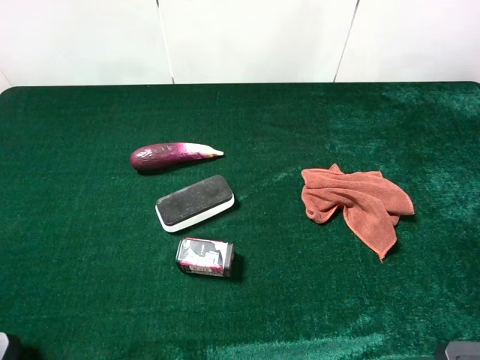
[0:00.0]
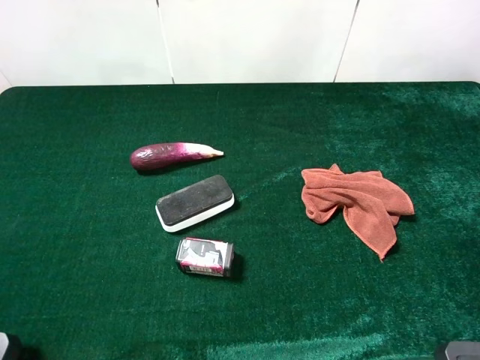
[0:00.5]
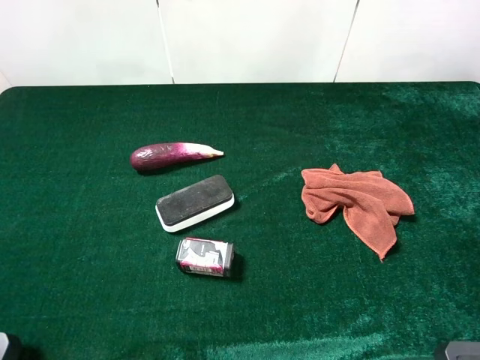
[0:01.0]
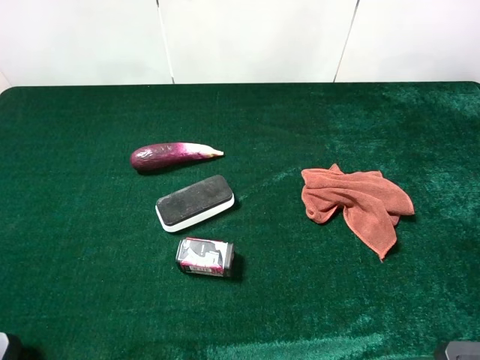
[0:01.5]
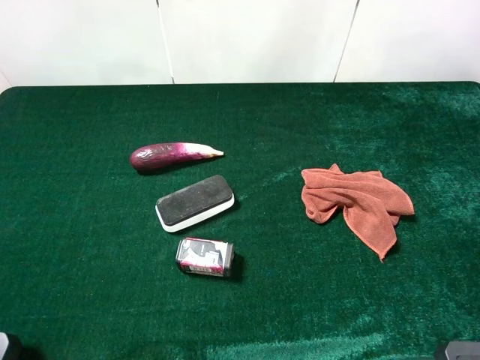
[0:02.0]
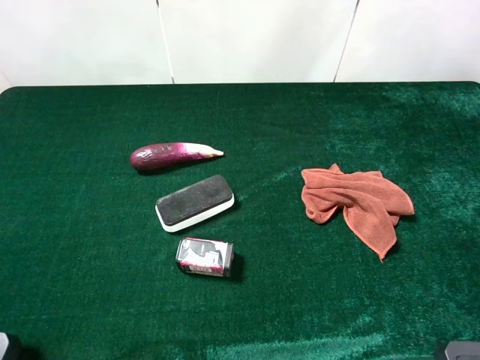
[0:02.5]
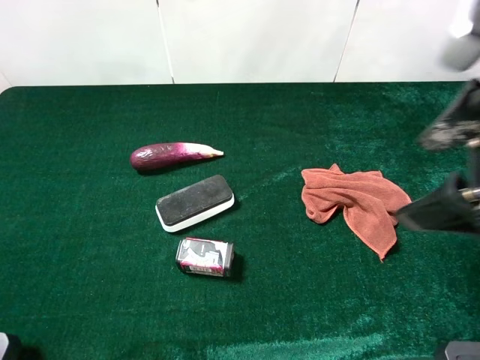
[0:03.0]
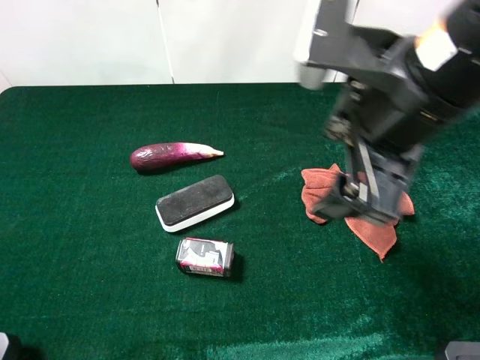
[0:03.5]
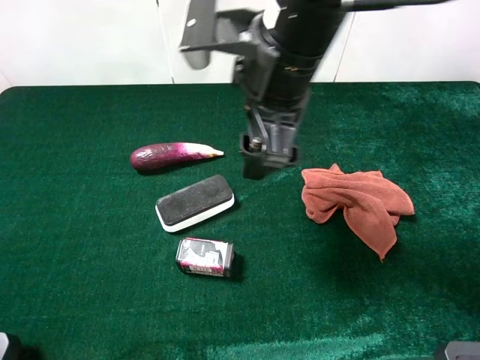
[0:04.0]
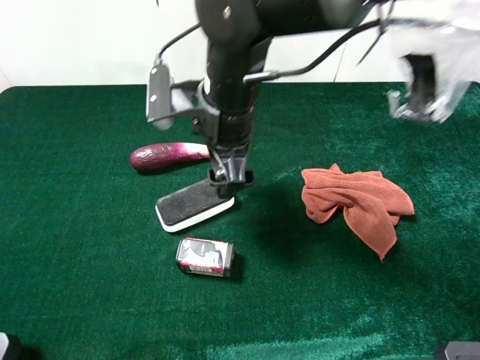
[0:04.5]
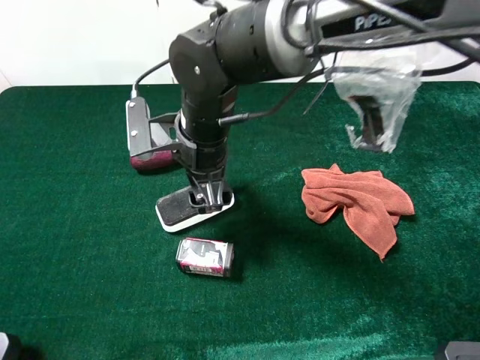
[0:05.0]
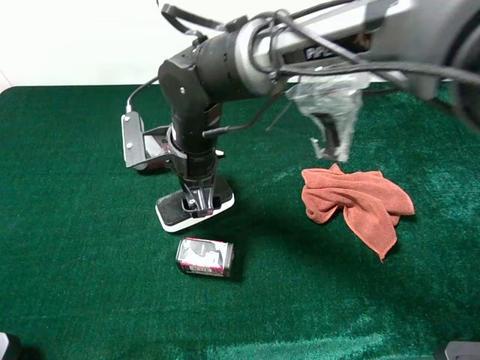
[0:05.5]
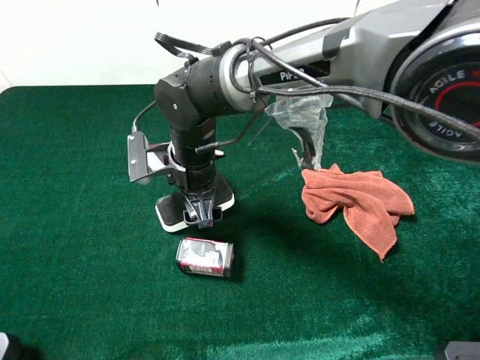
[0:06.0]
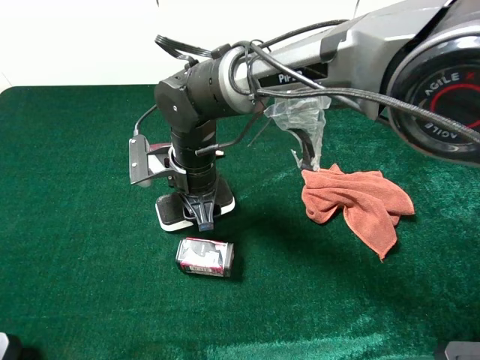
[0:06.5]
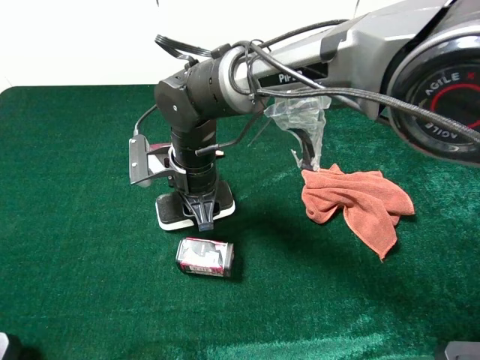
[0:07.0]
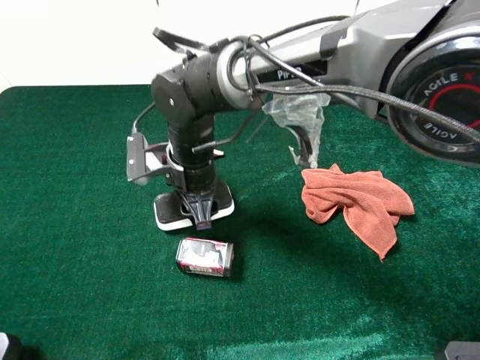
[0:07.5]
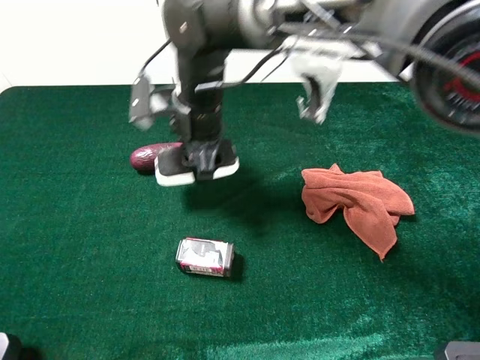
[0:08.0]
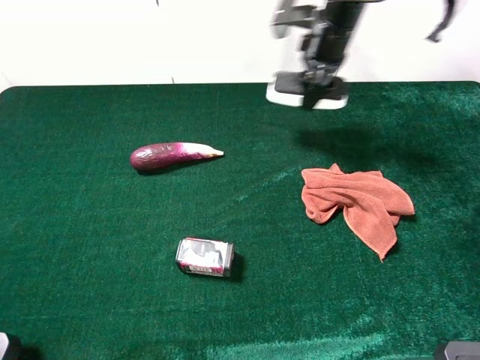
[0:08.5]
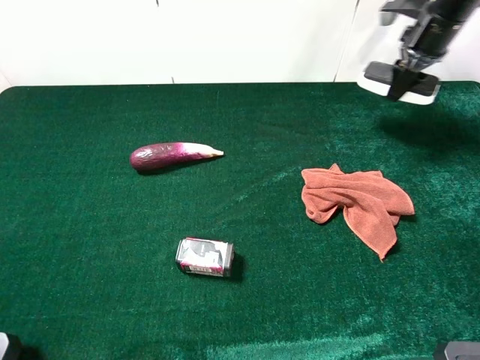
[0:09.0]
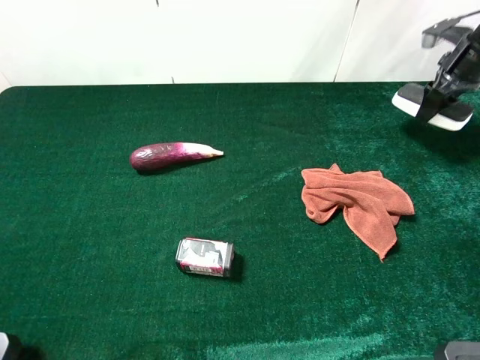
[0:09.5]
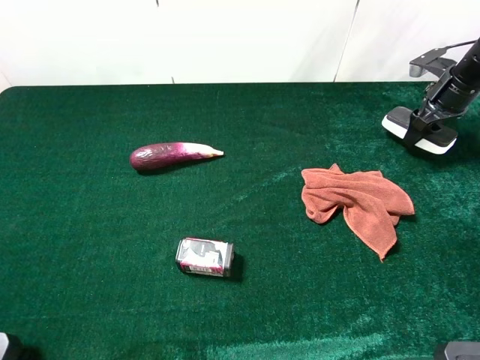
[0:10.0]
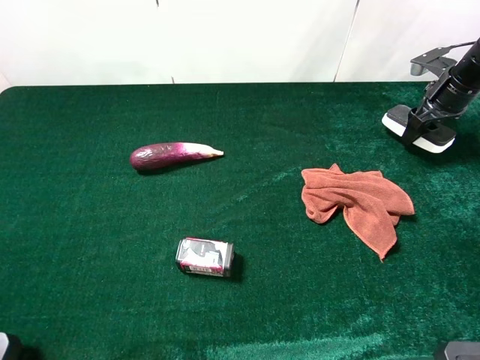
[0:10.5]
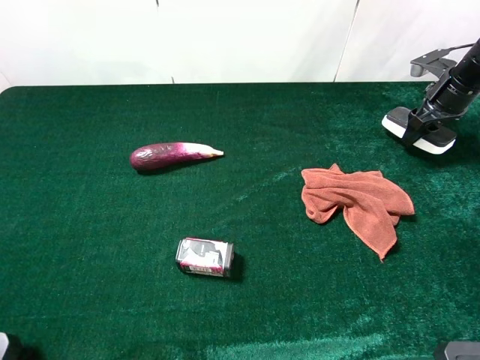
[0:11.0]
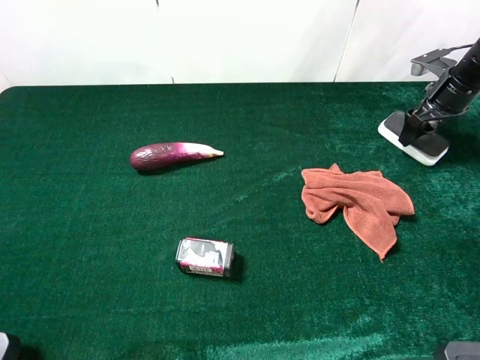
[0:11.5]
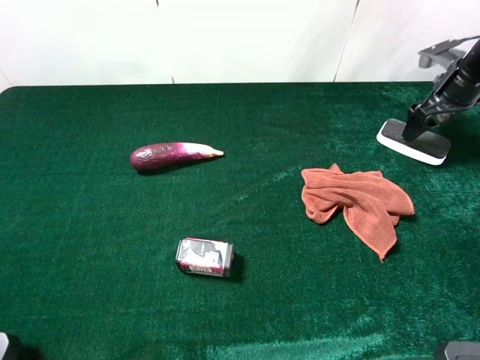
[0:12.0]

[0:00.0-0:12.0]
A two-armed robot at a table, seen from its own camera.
Task of the whole recording: the gripper move the object.
Step, 0:00.0 to 0:06.0: Grasp the white blackboard erasure with the right gripper.
Step, 0:06.5 to 0:11.5: Place the white blackboard erasure on the table with the right gripper.
0:02.0 to 0:04.0: The right gripper travels to the left and forward by some 30 cm.
0:04.0 to 0:06.0: The right gripper goes approximately 20 cm downward and to the left.
0:06.0 to 0:08.0: The right gripper goes about 5 cm upward, and closes.
0:08.0 to 0:10.0: The right gripper shifts about 40 cm to the right.
0:10.0 to 0:12.0: The right gripper opens up.

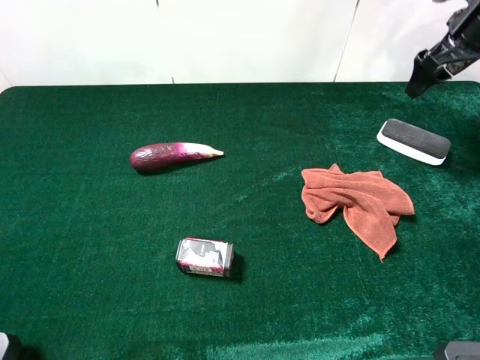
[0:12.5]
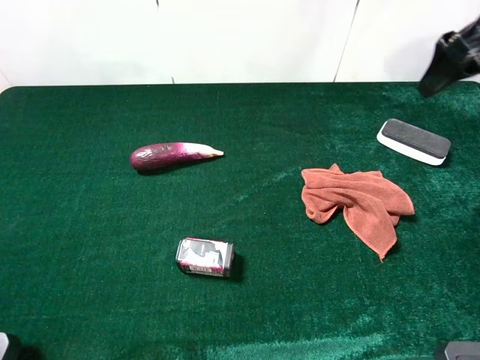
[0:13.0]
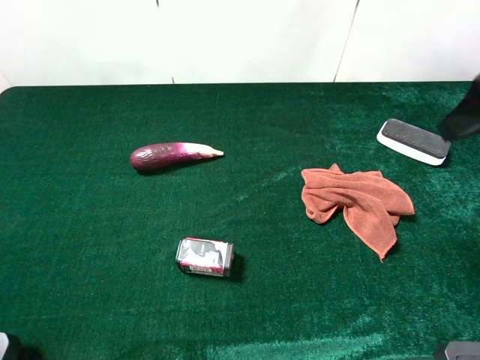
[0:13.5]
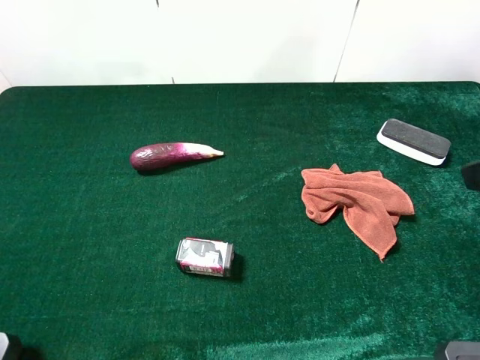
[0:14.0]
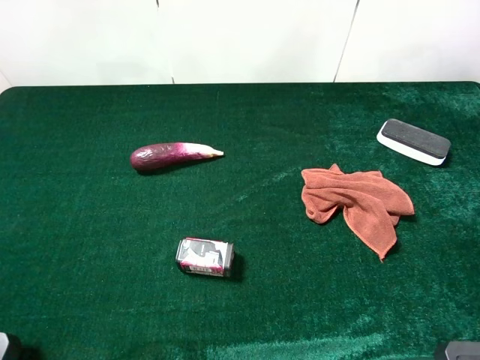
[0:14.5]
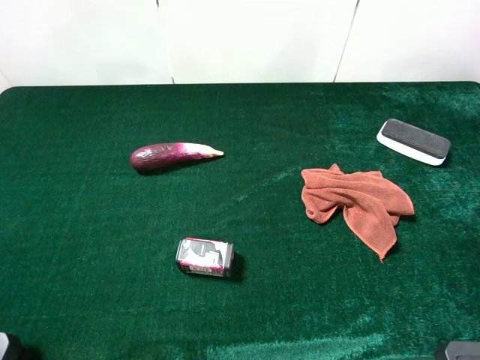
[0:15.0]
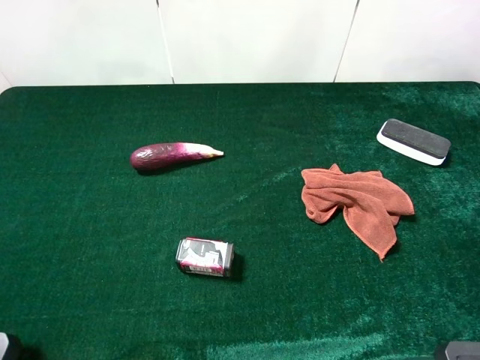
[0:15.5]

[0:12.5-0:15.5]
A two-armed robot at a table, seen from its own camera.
Task of the whole recording: the gripper move the object.
0:12.5 to 0:14.0: The right gripper goes approximately 30 cm backward.

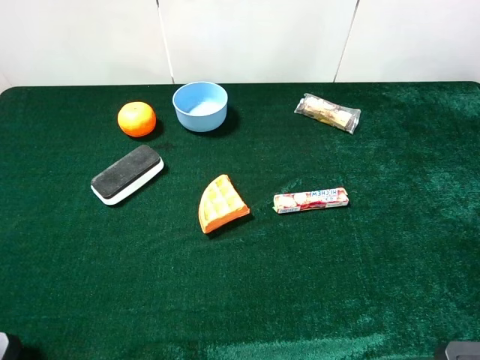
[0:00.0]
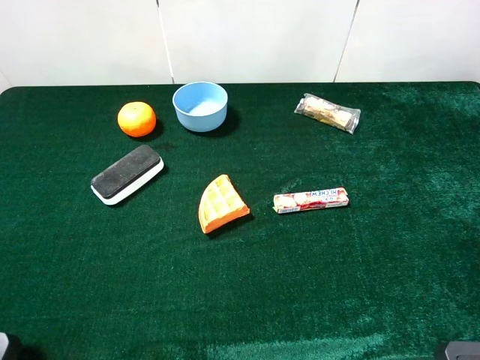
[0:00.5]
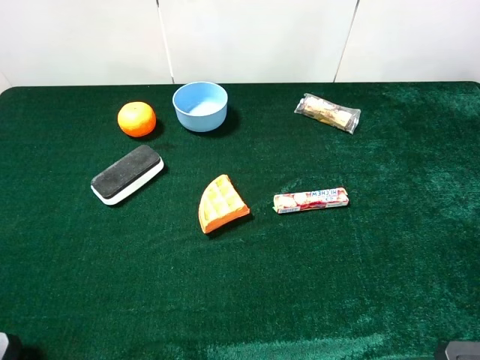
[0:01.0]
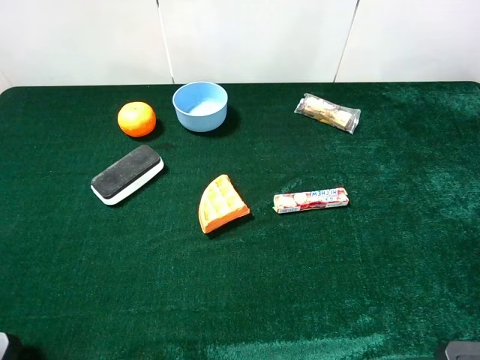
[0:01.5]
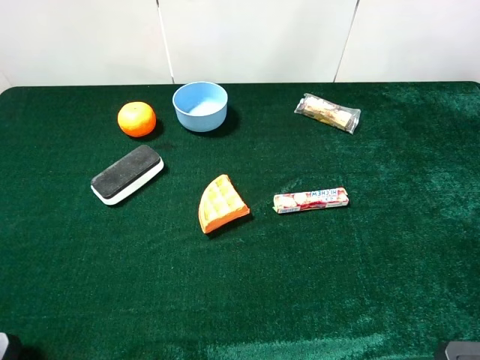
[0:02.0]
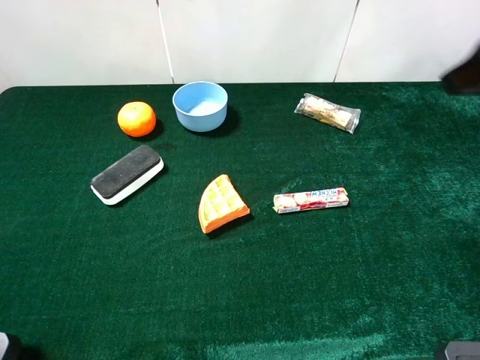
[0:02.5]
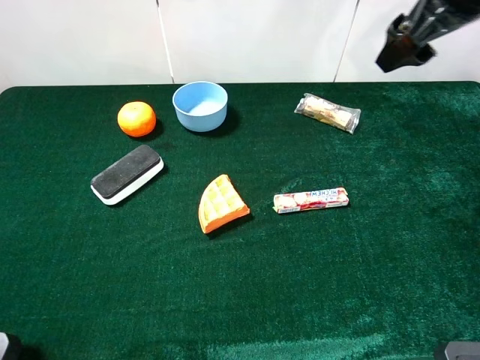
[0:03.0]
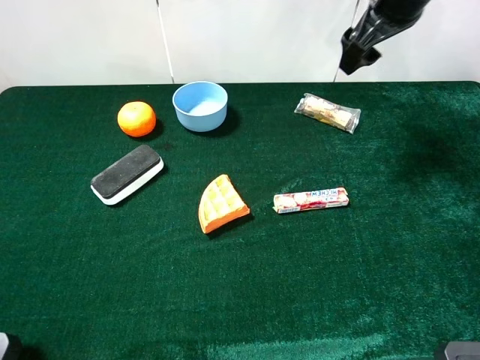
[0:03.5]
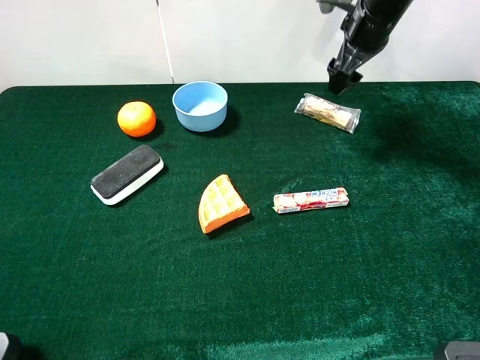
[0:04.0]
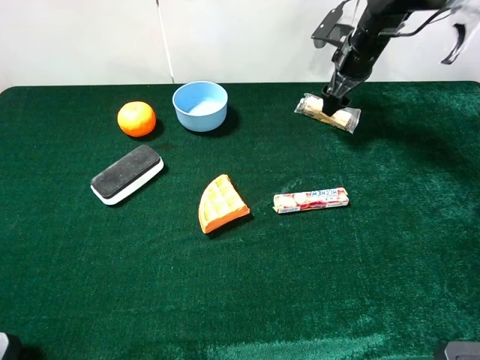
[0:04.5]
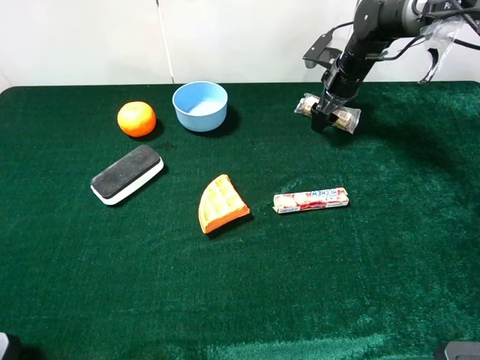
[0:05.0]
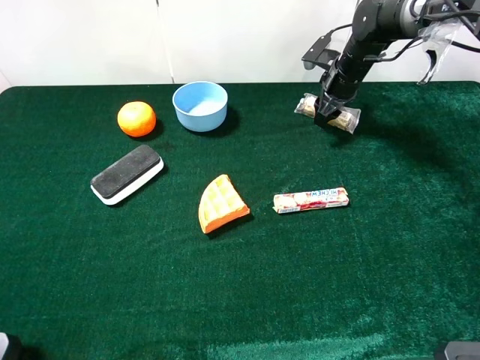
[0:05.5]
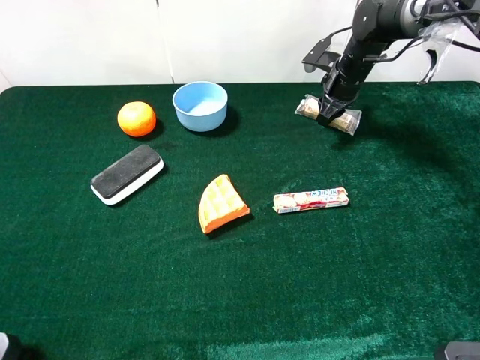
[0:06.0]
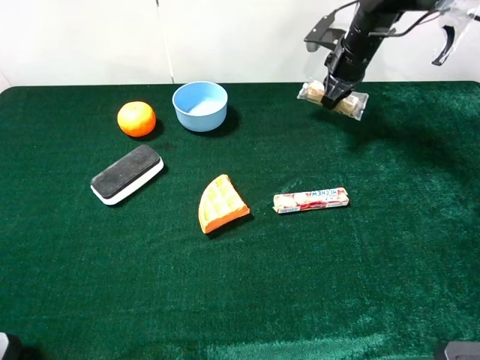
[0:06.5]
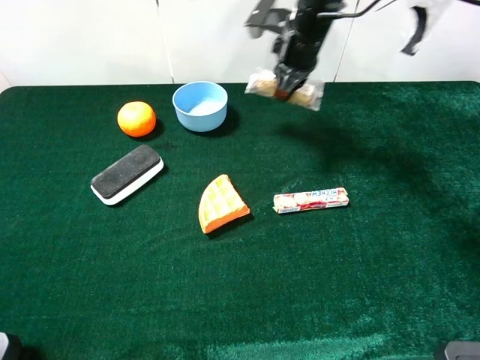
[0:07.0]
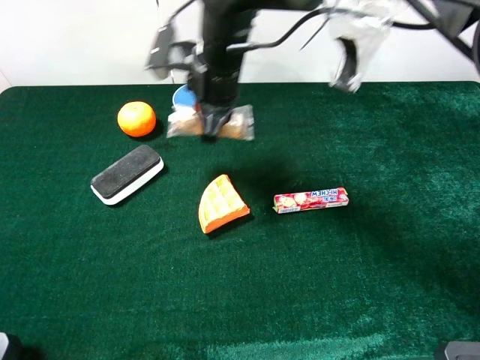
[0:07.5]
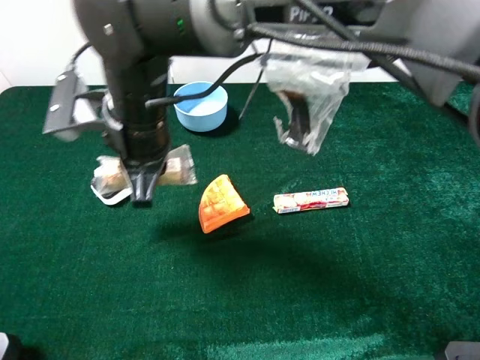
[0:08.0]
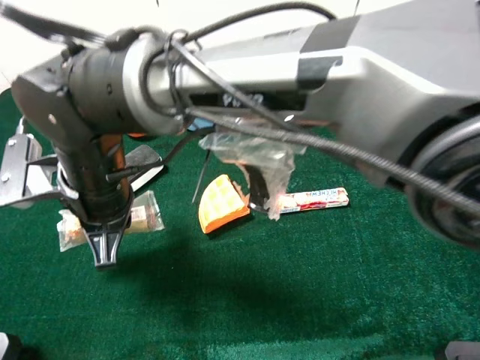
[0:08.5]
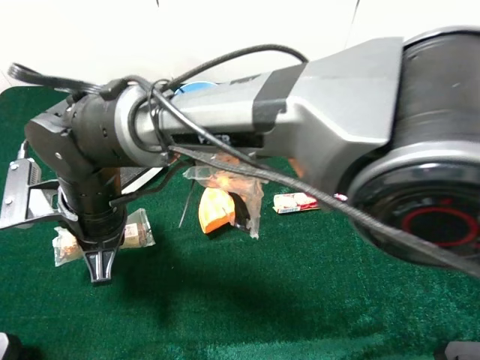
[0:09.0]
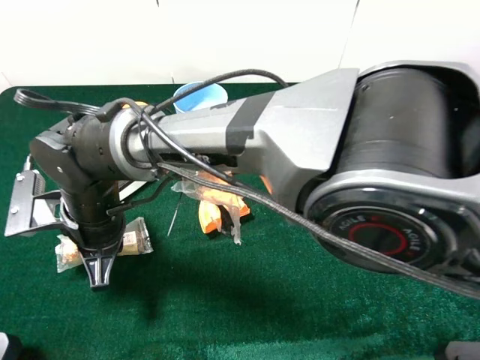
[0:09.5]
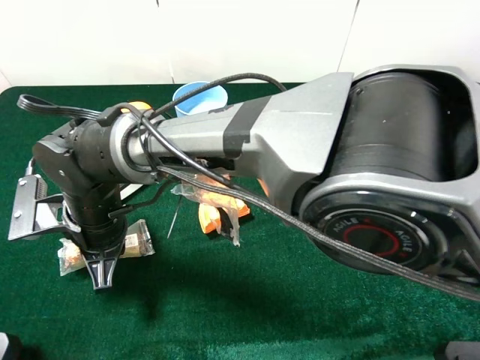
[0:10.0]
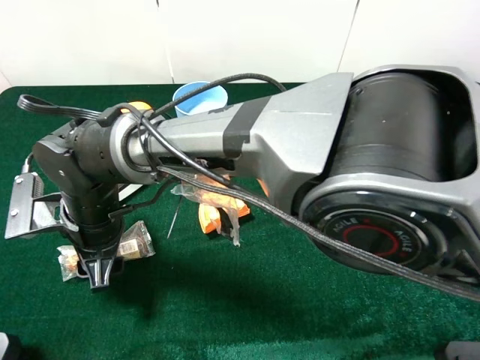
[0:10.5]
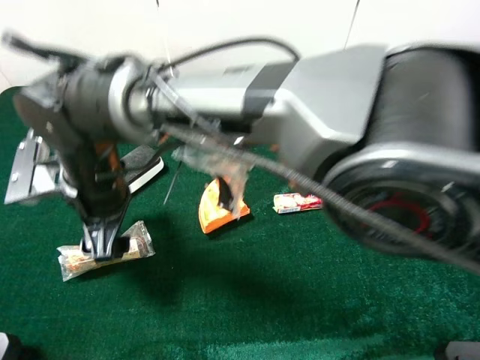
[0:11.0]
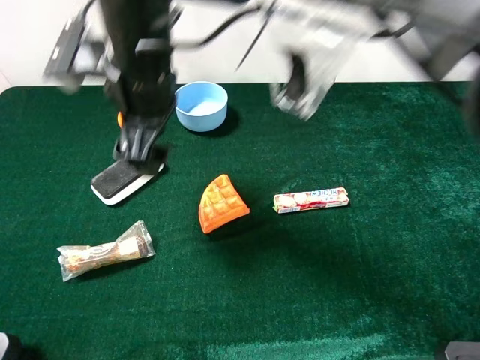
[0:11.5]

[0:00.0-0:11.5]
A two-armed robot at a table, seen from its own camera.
Task of the whole recording: the gripper move the object.
Step, 0:00.0 to 0:05.5: Grasp the chocolate with the right gripper.
Step, 0:06.0 to 0:10.0: Place the chocolate on the table with the right gripper.
0:02.0 to 0:04.0: The right gripper travels forward by approximately 40 cm.
0:04.0 to 0:06.0: The right gripper goes about 10 cm downward, and closes its fingers.
0:06.0 to 0:07.5: The right gripper heads to the left and backward, covering some 30 cm.
0:07.5 to 0:09.5: The right gripper goes approximately 20 cm backward, to the left and downward.
0:09.5 to 0:11.5: The right gripper shifts about 20 cm upward, forward and to the right, and opens up.
